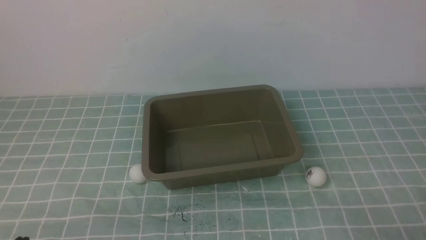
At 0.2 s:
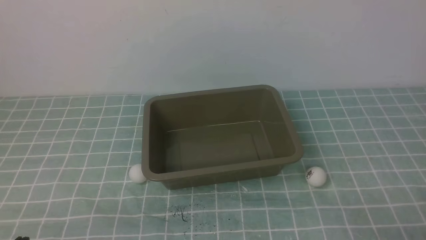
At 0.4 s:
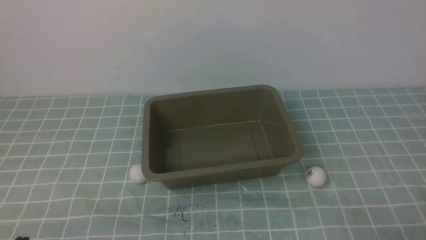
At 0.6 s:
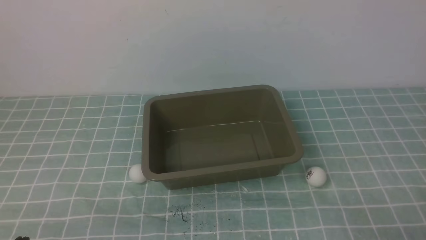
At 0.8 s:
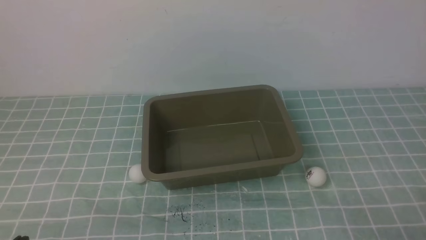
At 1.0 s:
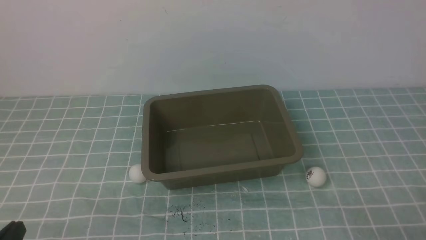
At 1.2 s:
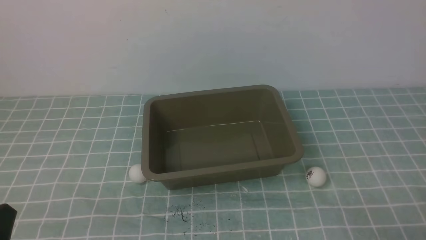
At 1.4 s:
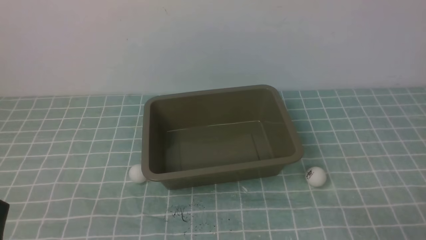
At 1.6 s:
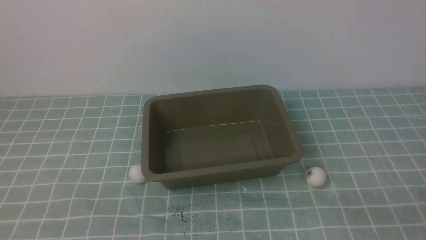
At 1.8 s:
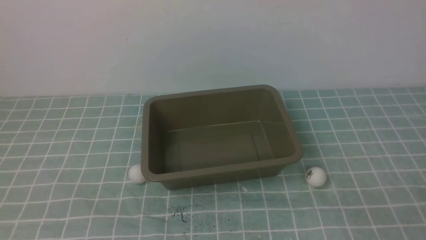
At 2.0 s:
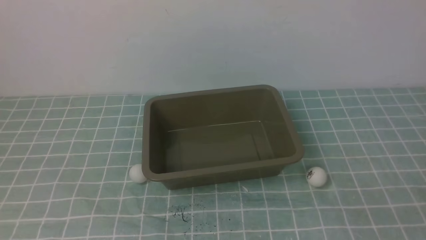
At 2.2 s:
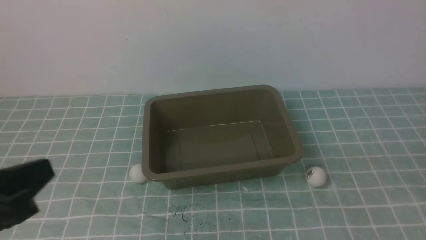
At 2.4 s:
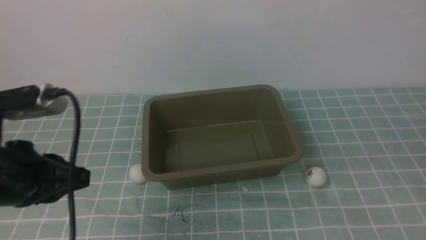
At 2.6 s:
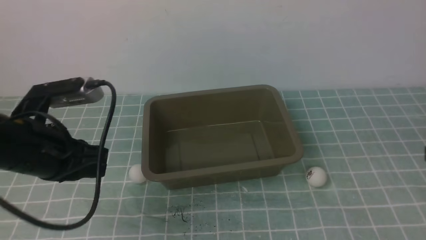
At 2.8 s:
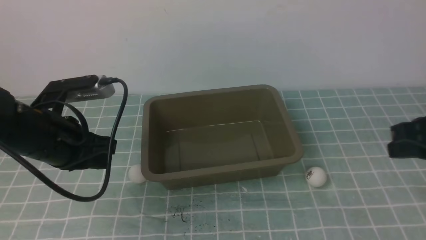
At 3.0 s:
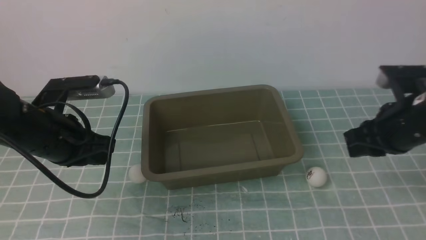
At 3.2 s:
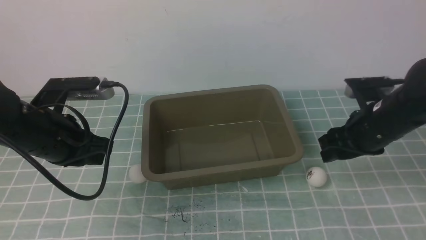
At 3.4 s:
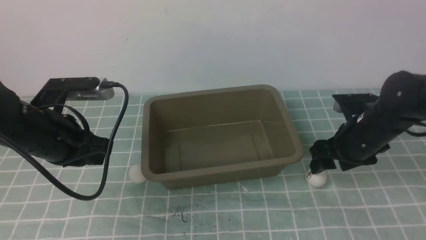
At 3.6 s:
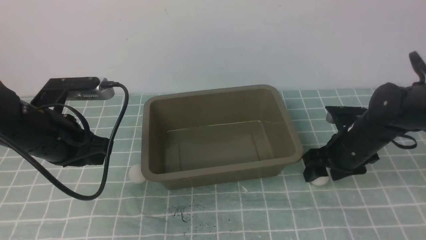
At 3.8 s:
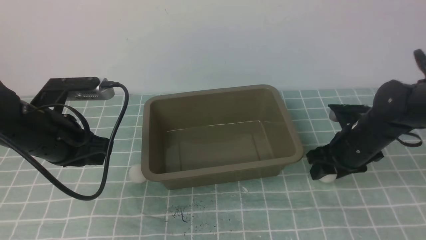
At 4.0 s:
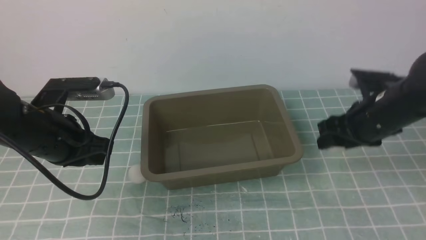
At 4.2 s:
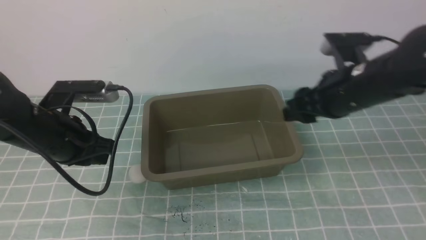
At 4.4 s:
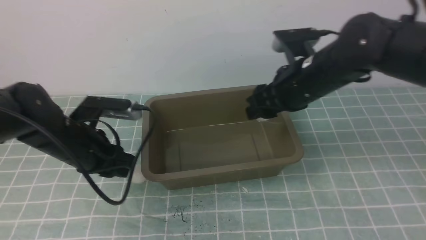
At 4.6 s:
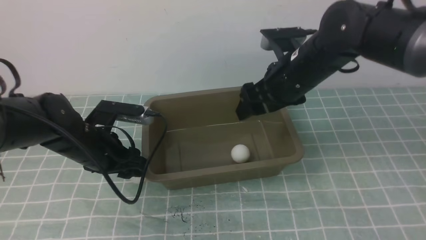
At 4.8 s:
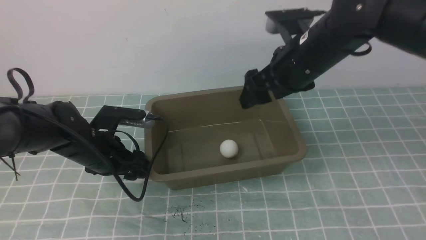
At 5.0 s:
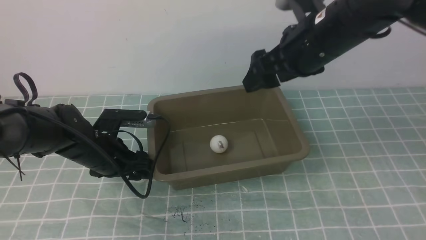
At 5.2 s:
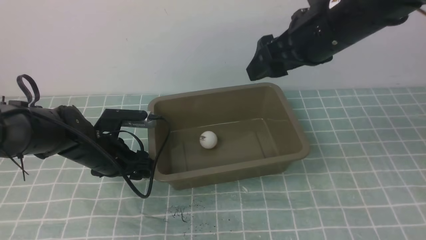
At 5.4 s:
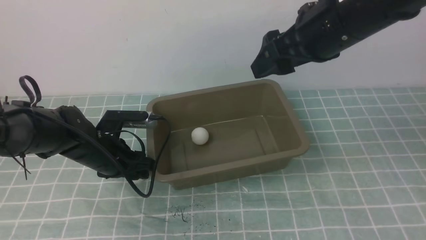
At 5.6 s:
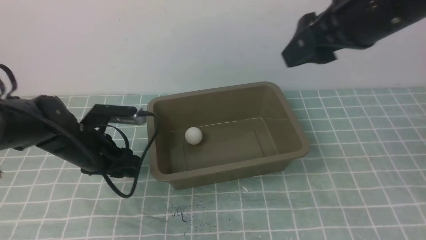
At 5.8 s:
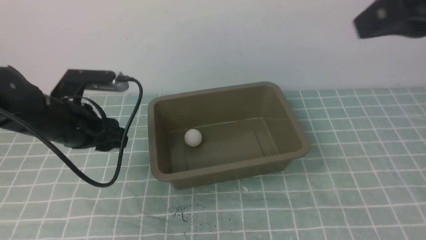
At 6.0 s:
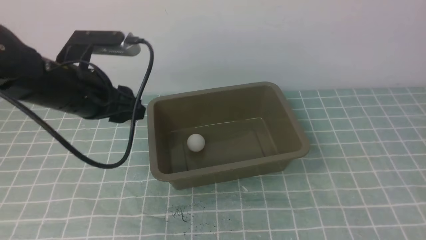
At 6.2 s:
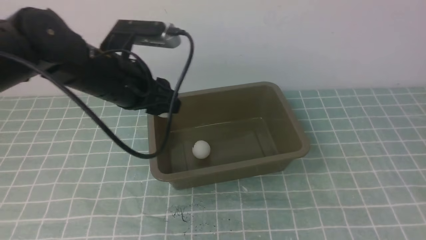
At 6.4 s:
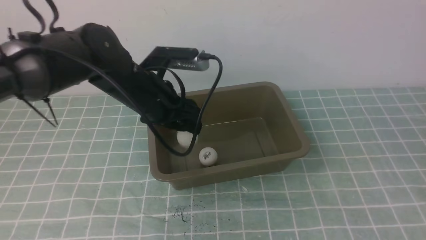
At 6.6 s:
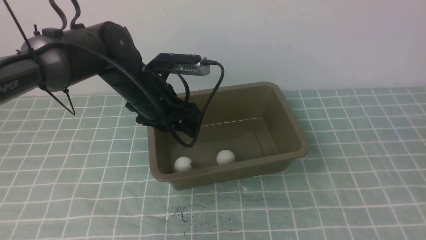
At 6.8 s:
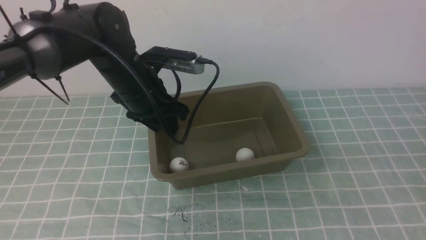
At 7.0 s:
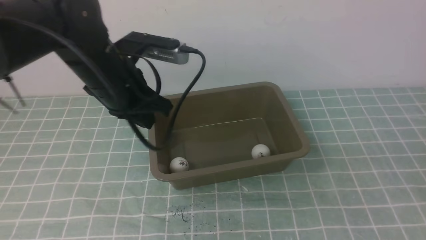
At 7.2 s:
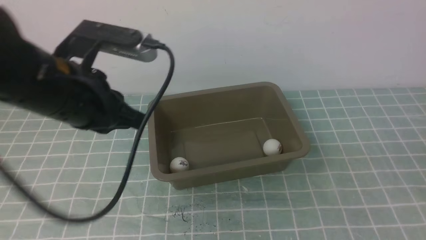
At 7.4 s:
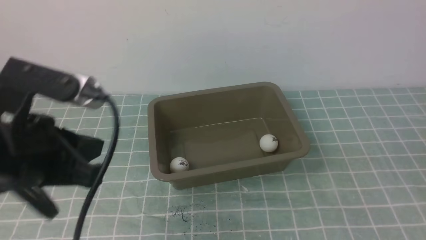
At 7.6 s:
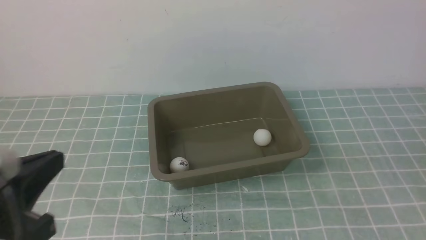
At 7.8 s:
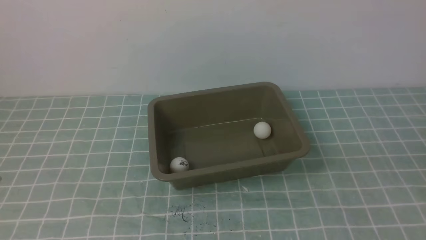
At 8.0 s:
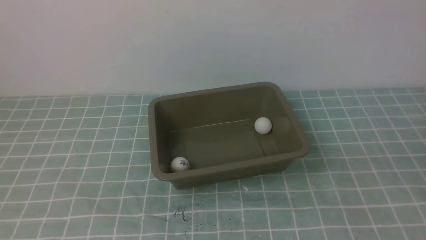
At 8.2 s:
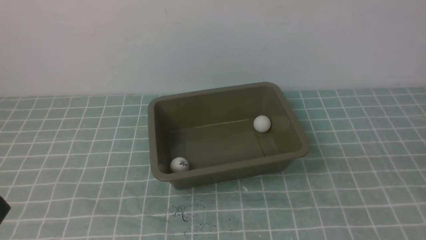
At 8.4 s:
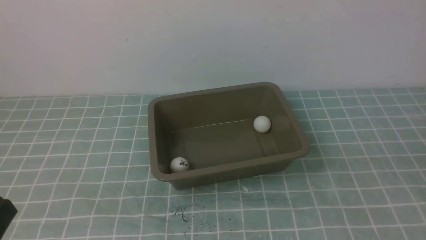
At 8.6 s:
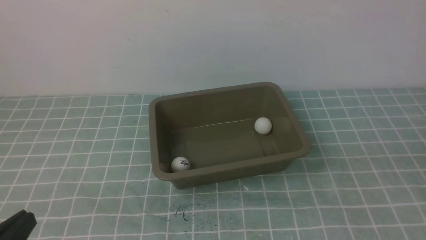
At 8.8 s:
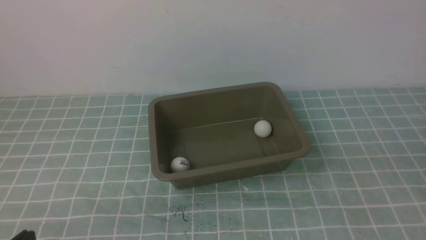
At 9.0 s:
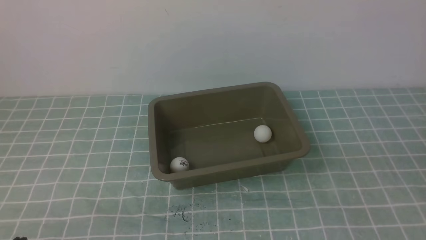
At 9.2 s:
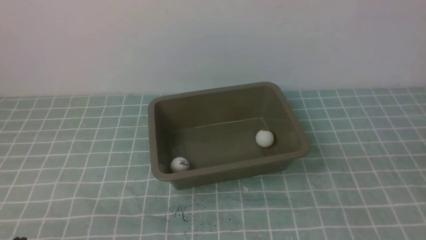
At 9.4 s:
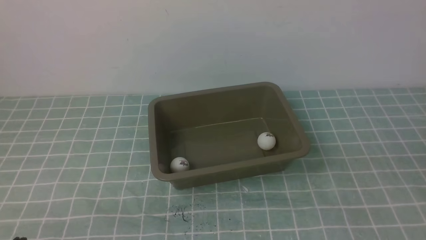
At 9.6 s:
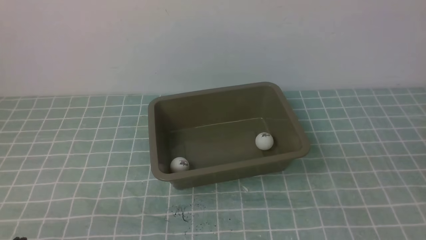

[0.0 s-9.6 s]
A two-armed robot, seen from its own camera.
Step, 0.0 to 3.8 s: use the right arm to clamp the table tennis ball closest to it.
Step, 4.0 to 4.6 s: use the right arm to put the table tennis ball into the box.
Step, 5.0 to 5.8 s: use the left arm to clamp the table tennis ball closest to it.
Step, 6.0 to 6.4 s: use the left arm to put the table tennis ball into the box.
1.6 to 3.2 s: Both grippers travel together forward, some 25 cm. The right gripper opens its fingers.
3.2 to 4.8 s: The right gripper goes about 15 cm to the left and upward, and opens. The left gripper heads downward and forward, covering some 10 cm, and opens its fingers.
4.8 to 6.4 s: The left gripper travels upward and to the right by about 15 cm. The right gripper goes approximately 30 cm backward and to the right, and closes.
6.4 to 8.0 s: The left gripper heads backward, covering approximately 35 cm, and closes up. Meanwhile the right gripper travels downward by roughly 5 cm.

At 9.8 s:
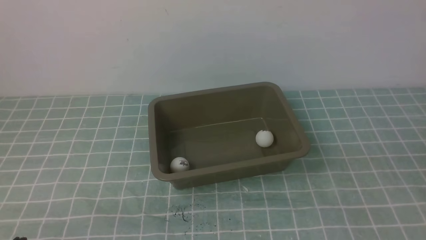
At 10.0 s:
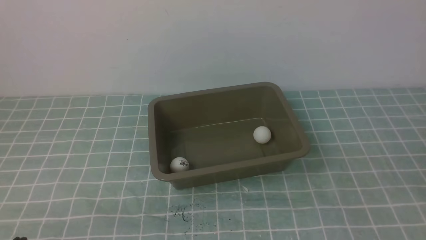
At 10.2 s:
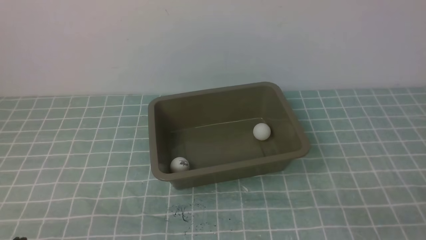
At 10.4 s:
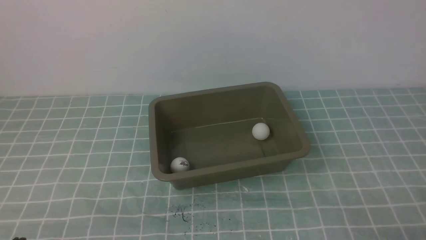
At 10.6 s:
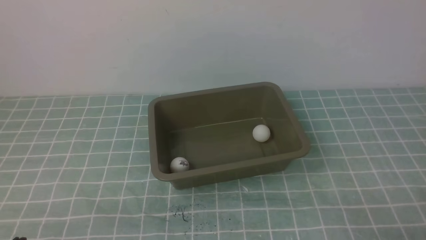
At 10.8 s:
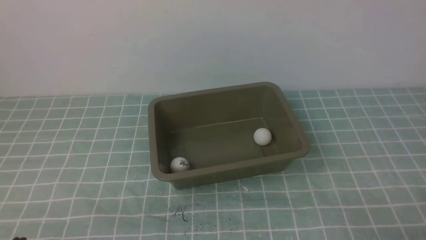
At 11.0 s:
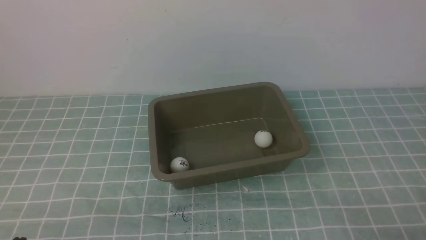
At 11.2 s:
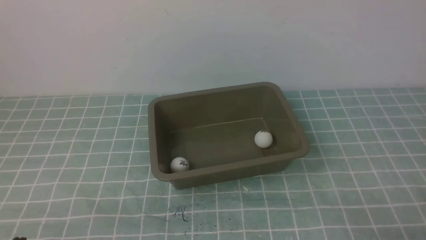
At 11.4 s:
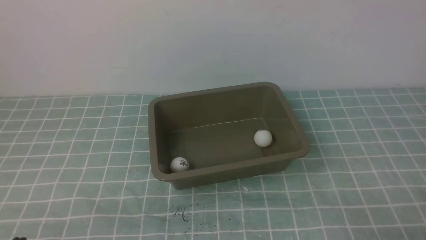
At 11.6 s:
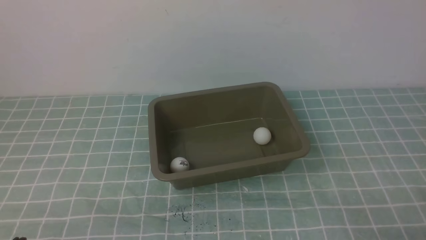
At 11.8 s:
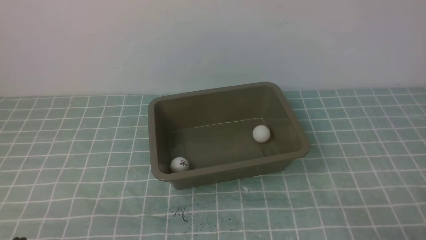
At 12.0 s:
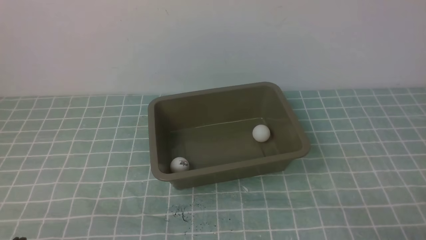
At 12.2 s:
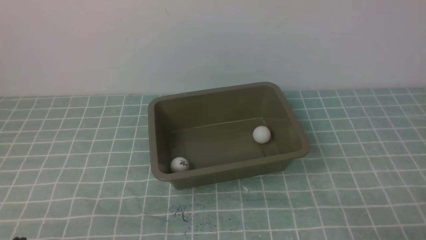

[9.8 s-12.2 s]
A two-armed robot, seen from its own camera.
11.0 to 12.2 s: Neither gripper changes place.

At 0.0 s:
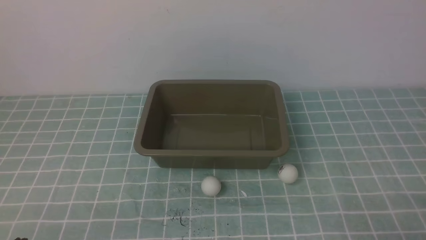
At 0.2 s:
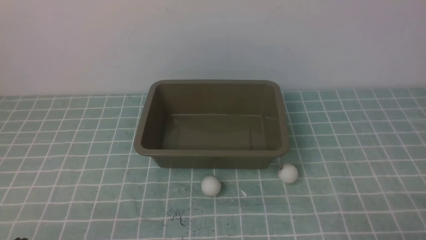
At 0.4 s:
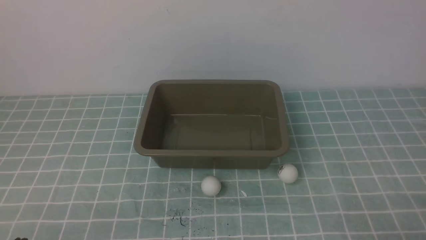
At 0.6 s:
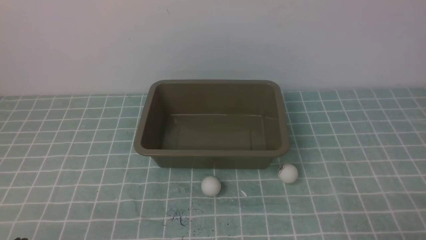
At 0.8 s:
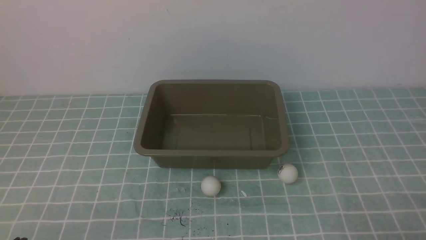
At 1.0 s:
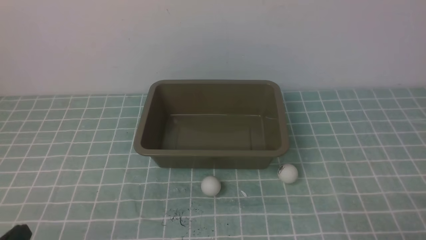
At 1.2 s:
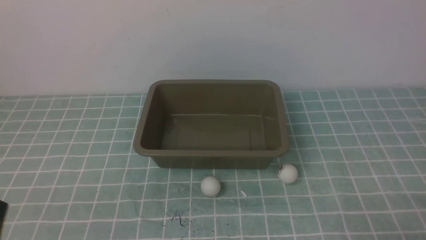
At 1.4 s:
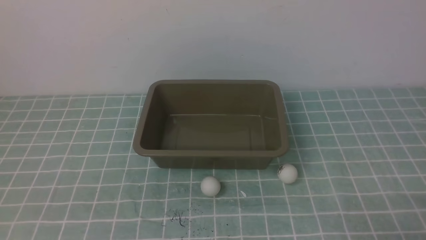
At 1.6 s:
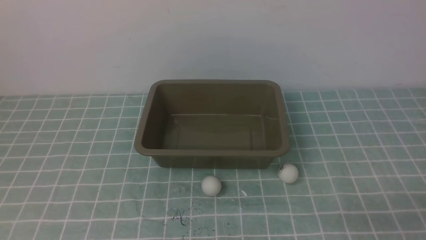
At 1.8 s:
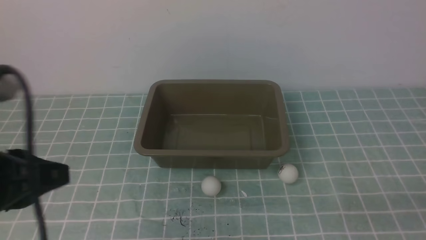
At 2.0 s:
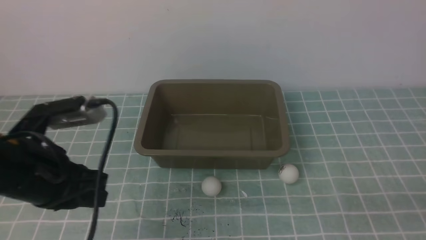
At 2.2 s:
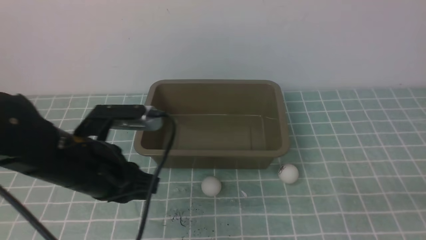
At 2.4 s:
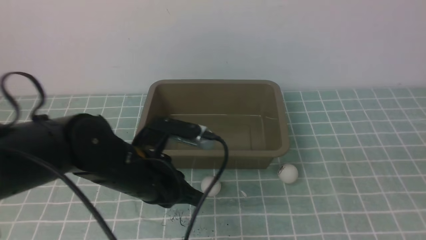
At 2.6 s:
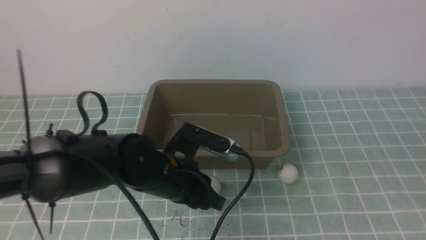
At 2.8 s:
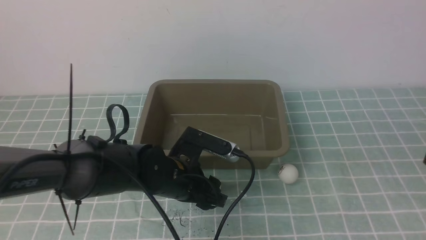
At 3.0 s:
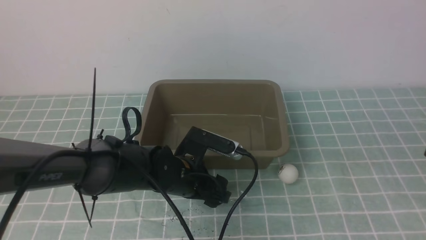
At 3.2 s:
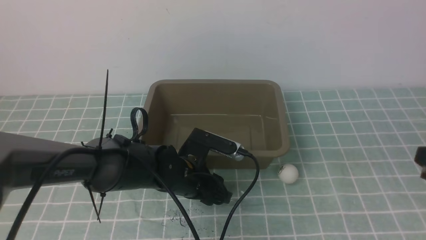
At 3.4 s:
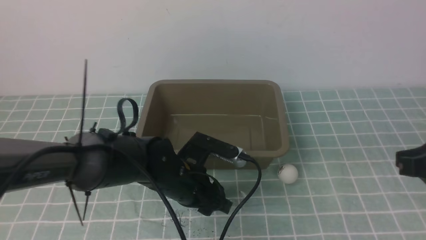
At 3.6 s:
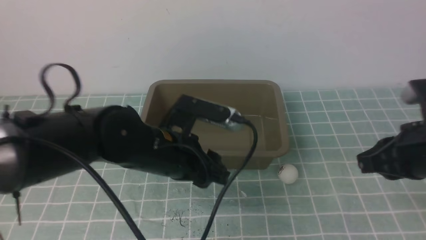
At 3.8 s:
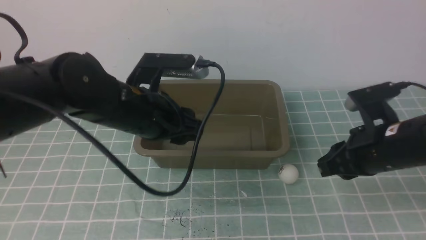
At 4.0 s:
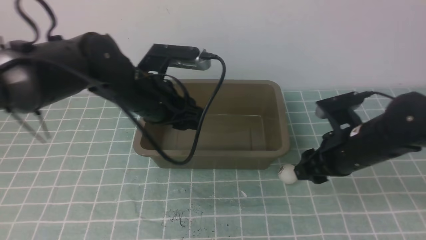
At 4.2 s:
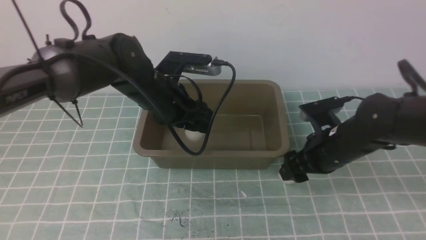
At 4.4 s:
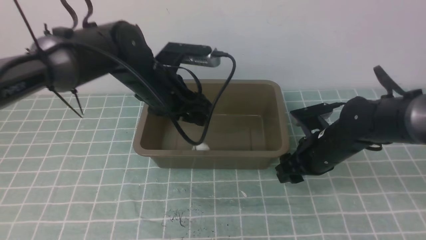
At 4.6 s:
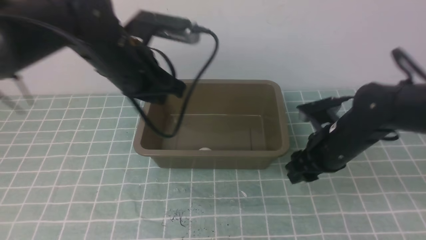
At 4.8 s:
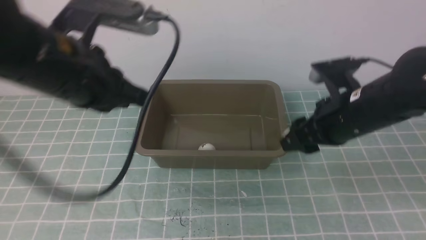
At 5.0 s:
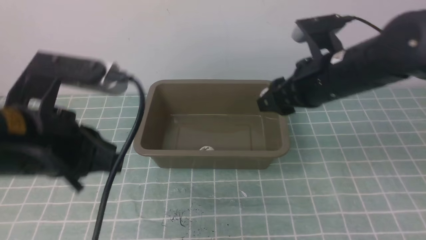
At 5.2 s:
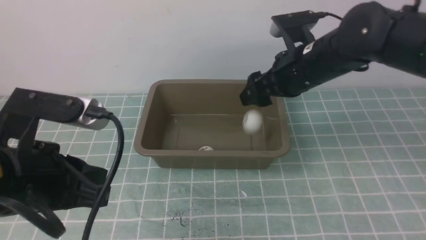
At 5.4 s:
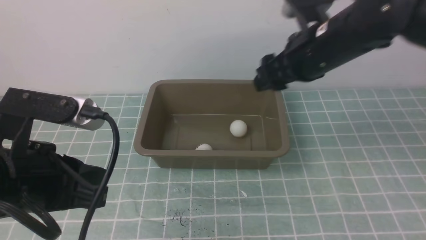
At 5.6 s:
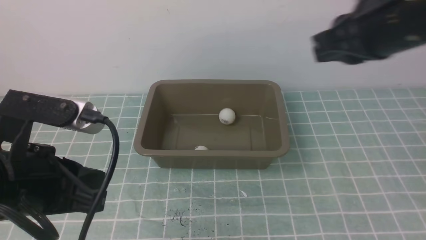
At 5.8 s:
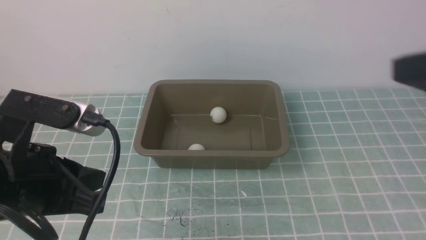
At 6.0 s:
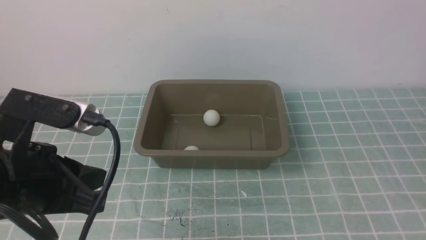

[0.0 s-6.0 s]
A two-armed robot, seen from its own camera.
Step, 0.0 to 3.4 s: use the left arm to clamp the table tennis ball closest to it.
Step, 3.6 to 4.2 s: use the left arm to put the table tennis ball into the box.
Step, 4.4 to 4.8 s: use the right arm to clamp the table tennis ball closest to it.
Step, 5.0 to 5.2 s: use the right arm to put the table tennis ball into the box.
1.6 to 3.0 s: The left gripper shifts some 35 cm forward, to the right and downward, and opens. The right gripper is displaced upward and forward by about 15 cm.
3.0 to 4.4 s: The right gripper moves forward, downward and to the left, some 25 cm, and opens its fingers. Meanwhile the left gripper shifts about 15 cm upward and forward.
4.4 to 6.0 s: The right gripper is displaced backward and upward by about 35 cm, and closes up; the left gripper travels backward and to the left by some 25 cm, and closes.
